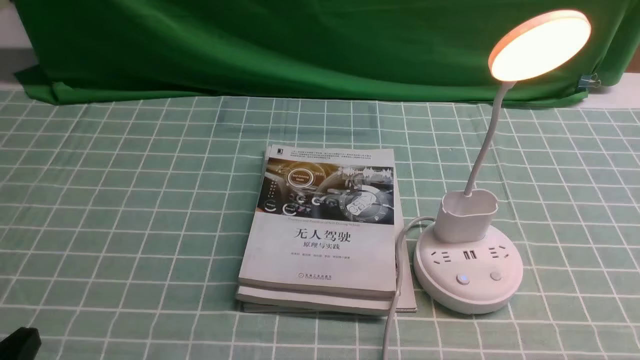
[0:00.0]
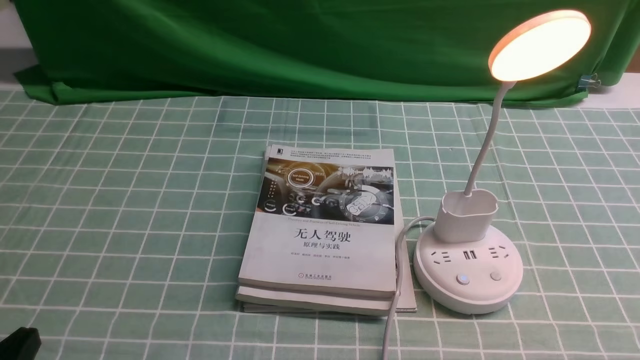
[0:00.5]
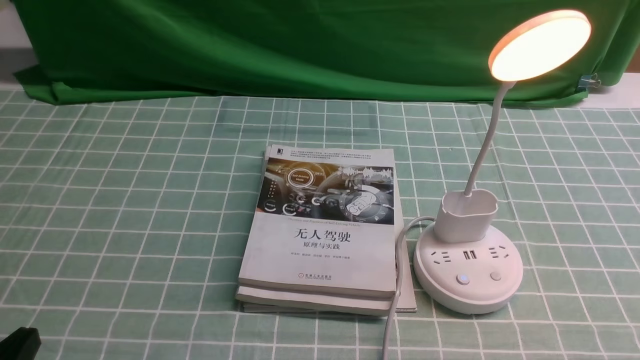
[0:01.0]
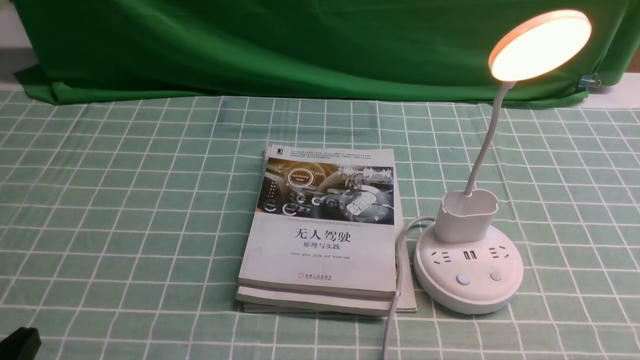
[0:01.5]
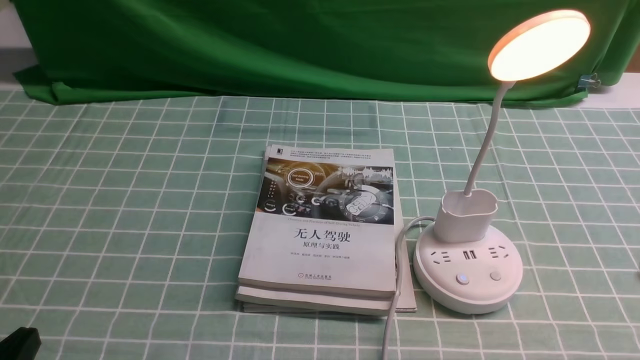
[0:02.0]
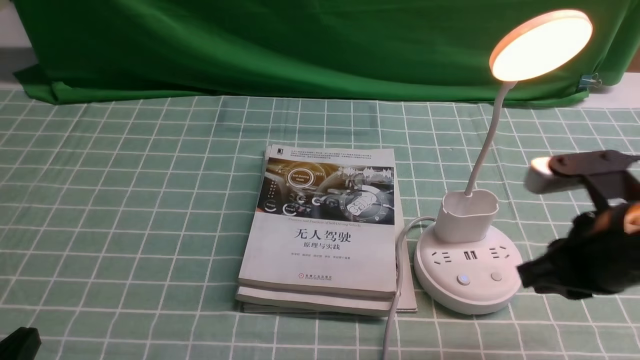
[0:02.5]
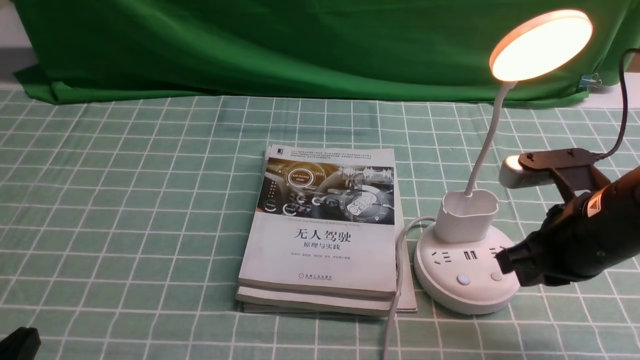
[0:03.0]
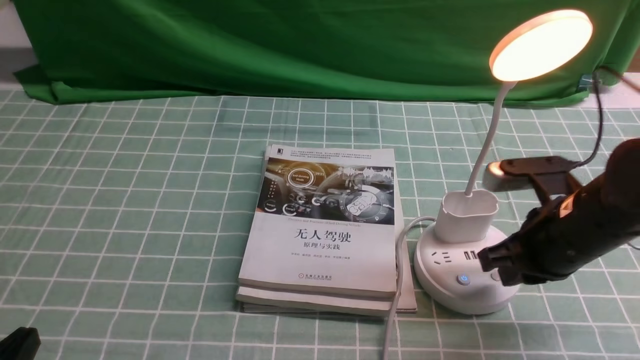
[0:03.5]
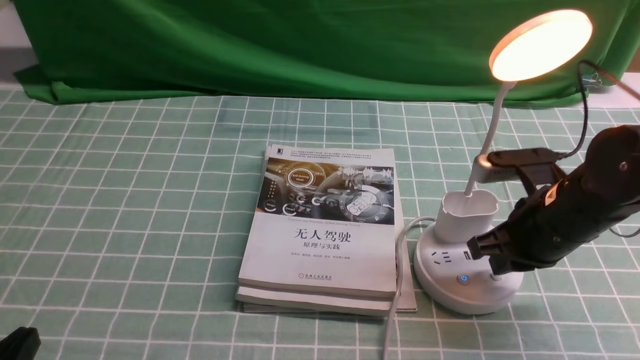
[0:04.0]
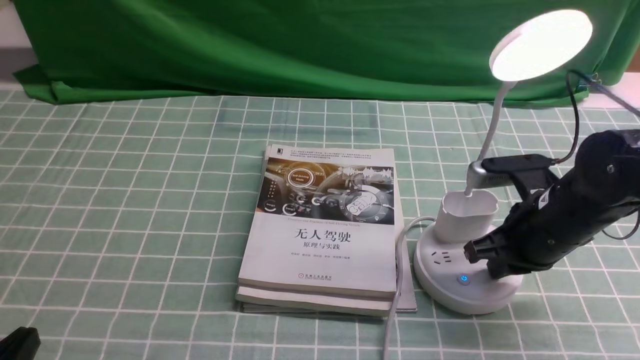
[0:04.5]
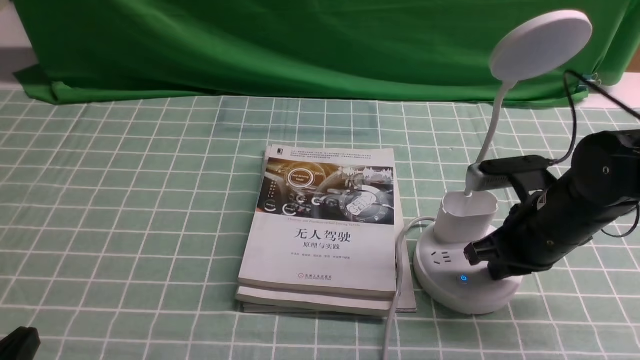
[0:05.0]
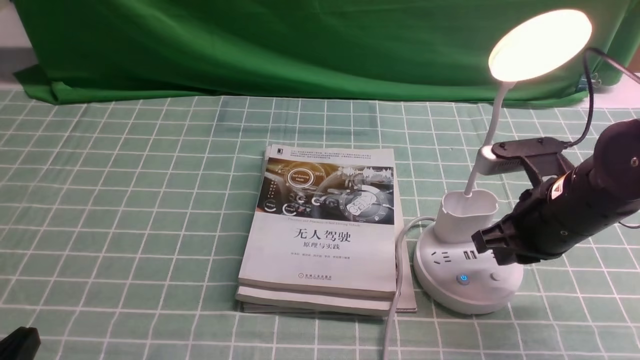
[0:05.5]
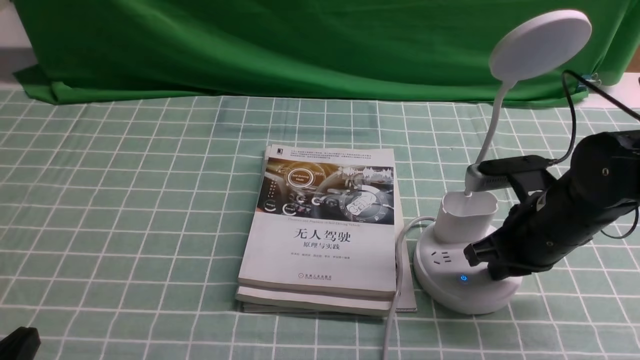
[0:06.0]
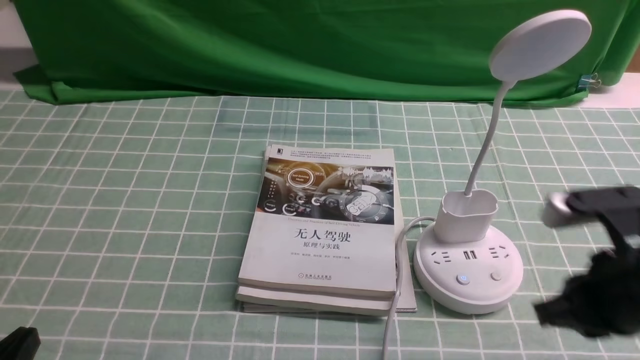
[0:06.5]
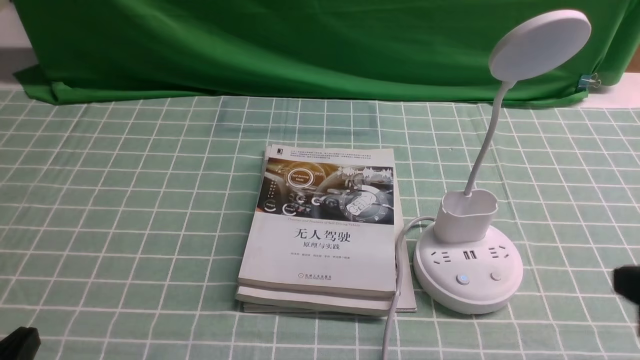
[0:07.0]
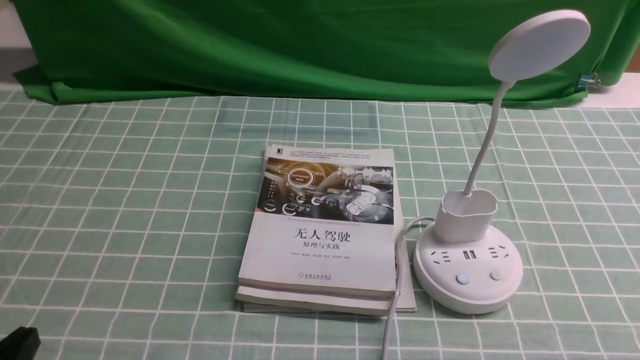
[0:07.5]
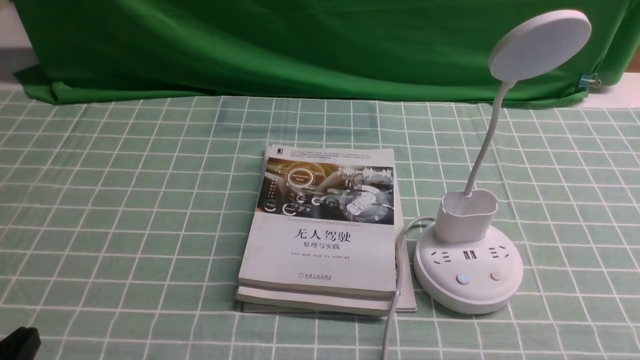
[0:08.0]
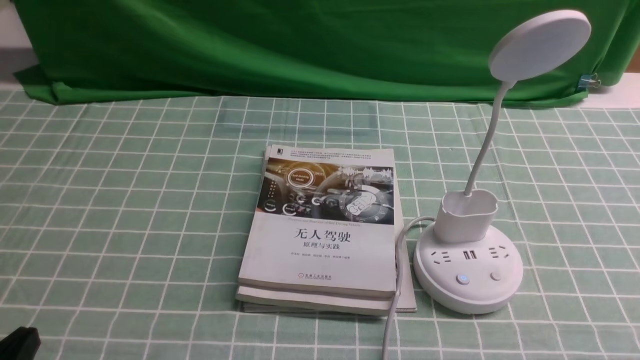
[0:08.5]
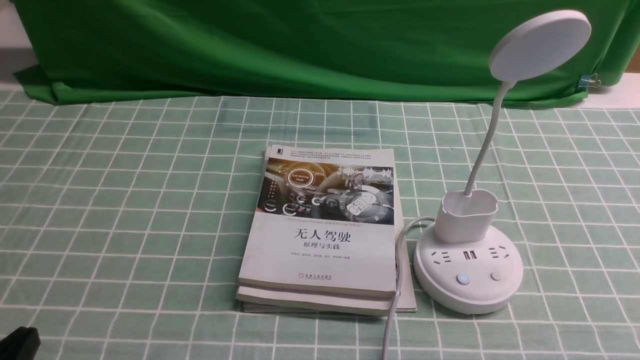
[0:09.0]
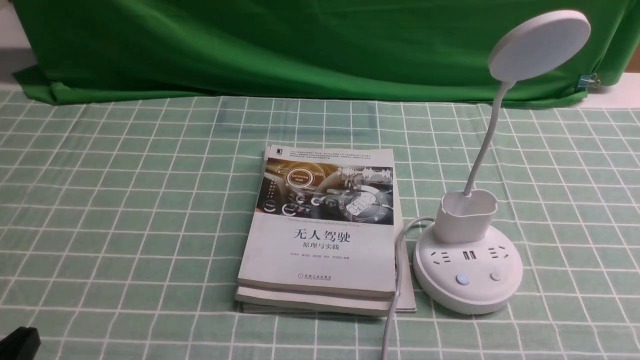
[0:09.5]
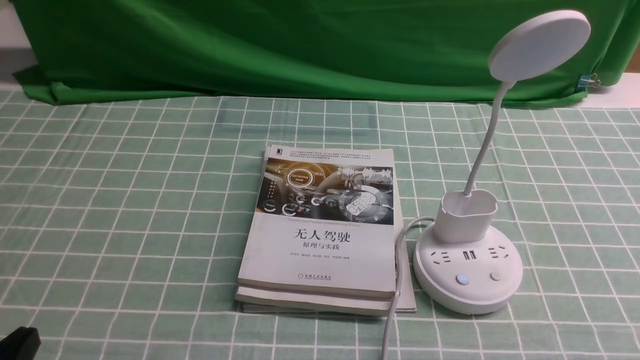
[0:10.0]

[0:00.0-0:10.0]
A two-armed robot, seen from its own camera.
Task of the whole recording: turn off the desk lamp on the blue coffee tablecloth by hand.
Step, 0:00.0 to 0:06.0: use the right arm to press the button switch on the lamp holder.
0:02.0 to 0:04.0: The right gripper heads forward, covering approximately 20 cm, and closes its fingers.
0:04.0 to 0:06.0: Both grippers stay about where they are.
0:06.0 to 0:08.0: The right gripper is displaced backward and to the right by about 25 cm.
